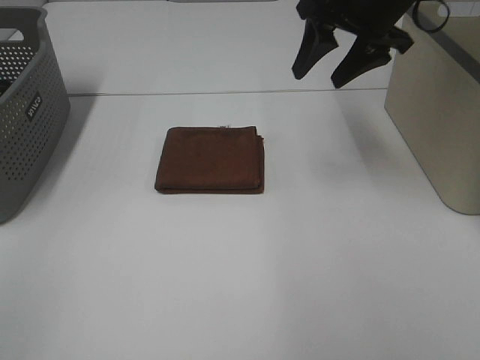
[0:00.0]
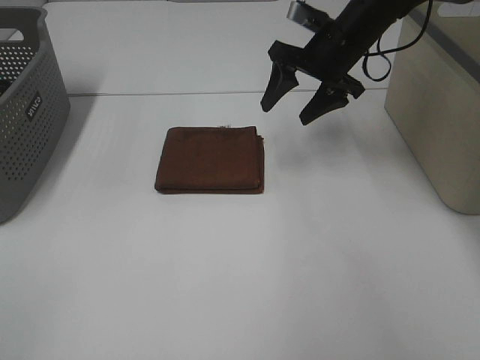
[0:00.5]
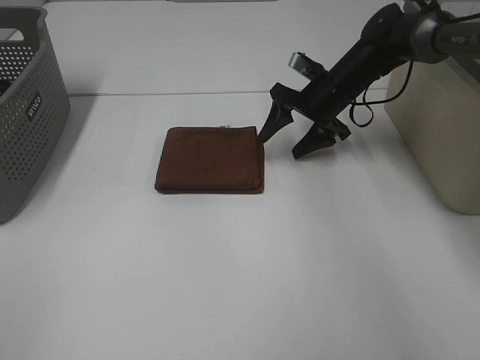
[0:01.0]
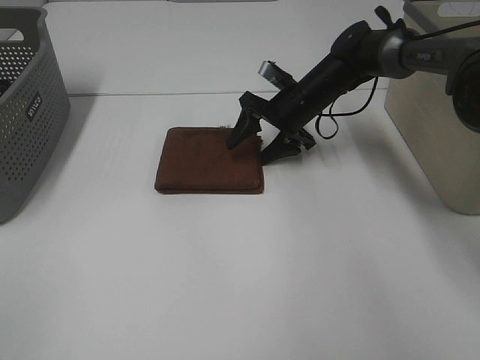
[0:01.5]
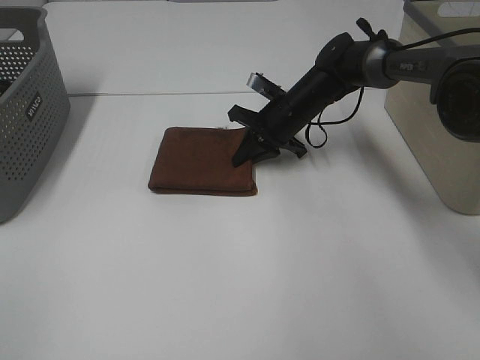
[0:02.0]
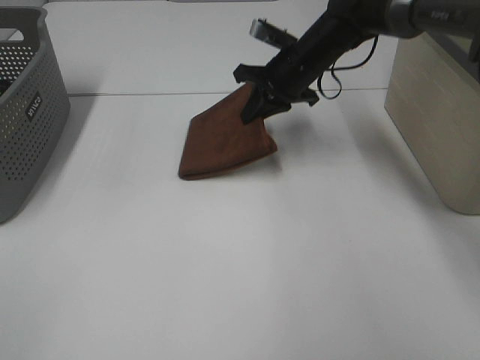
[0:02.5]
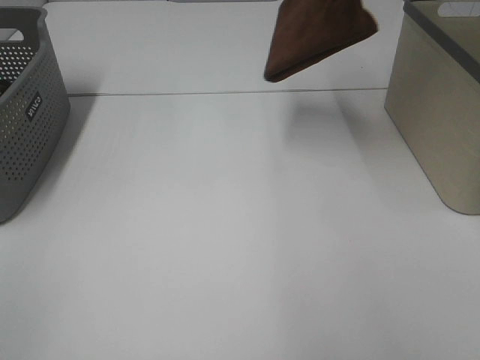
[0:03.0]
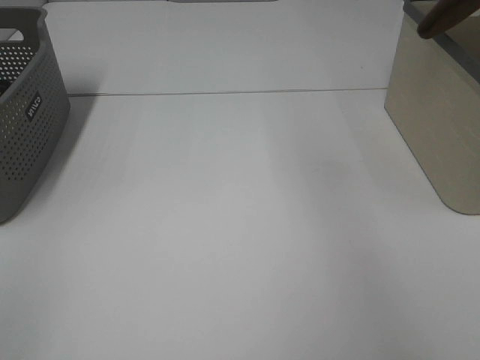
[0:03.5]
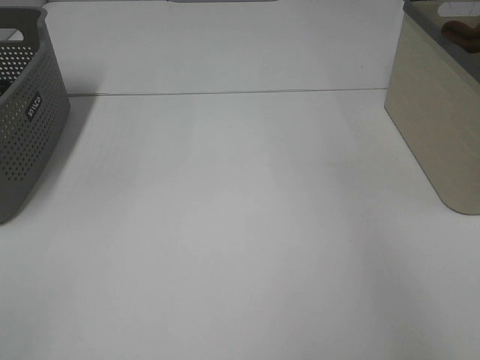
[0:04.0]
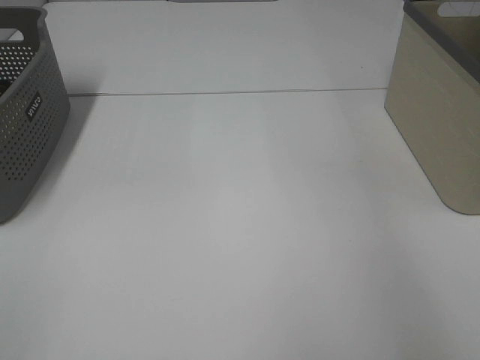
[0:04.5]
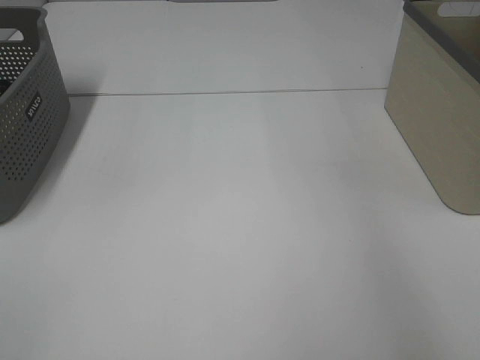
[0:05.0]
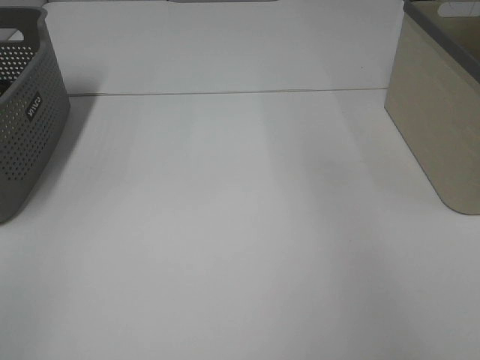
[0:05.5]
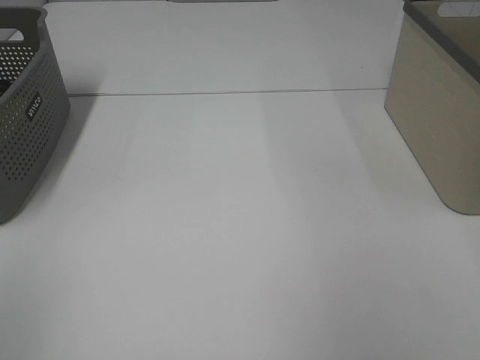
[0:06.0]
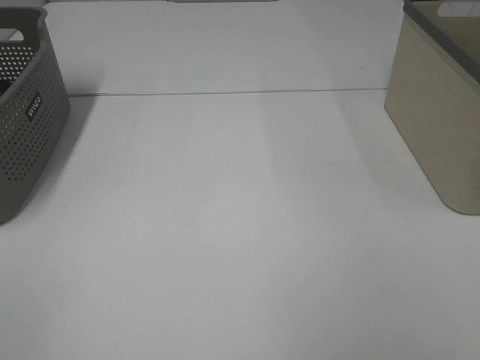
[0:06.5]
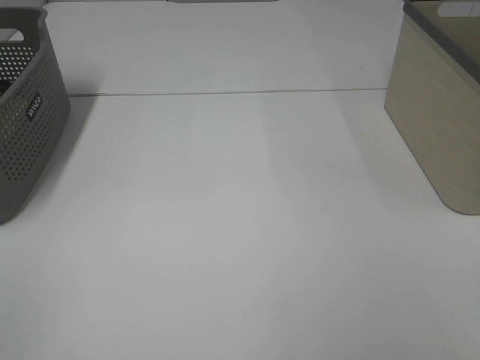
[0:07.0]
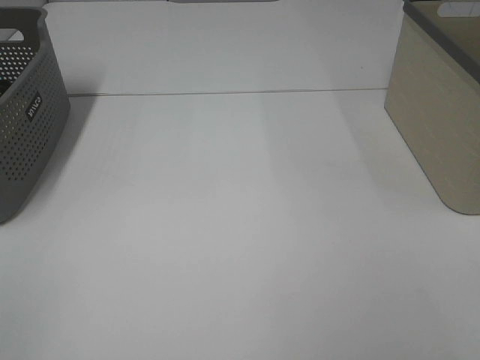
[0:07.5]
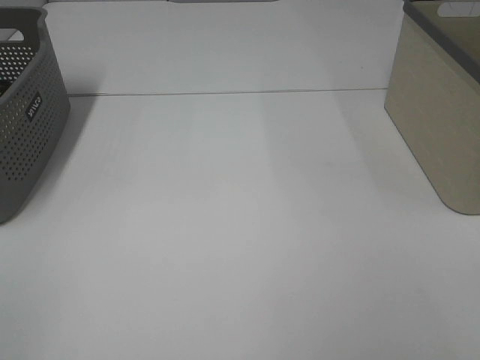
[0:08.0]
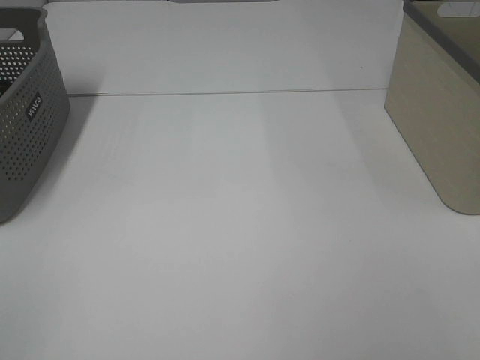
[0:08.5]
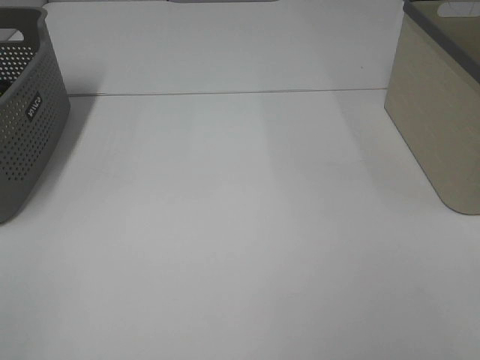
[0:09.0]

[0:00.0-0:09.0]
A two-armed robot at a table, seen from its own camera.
Step, 0:00.0 to 0:02.0: Right hand: grab the folded brown towel.
Step, 0:02.5 to 0:04.5: Right hand: place the brown towel in right basket.
0:00.0 to 0:02.0: The right gripper heads downward, covering approximately 20 cm, and closes up.
0:02.0 to 0:04.5: The right gripper heads to the right and upward, covering about 40 cm, and opens.
0:07.0 to 0:09.0: Neither gripper changes place.

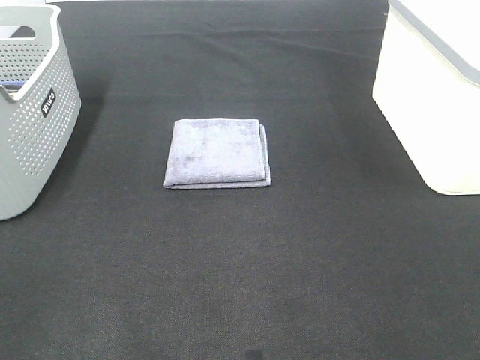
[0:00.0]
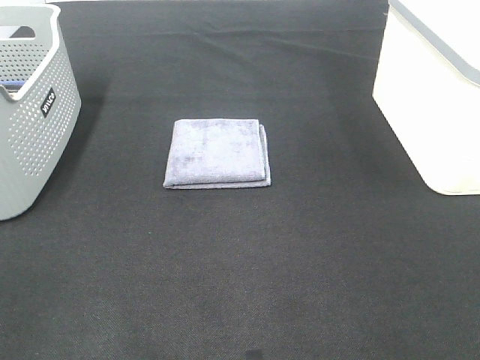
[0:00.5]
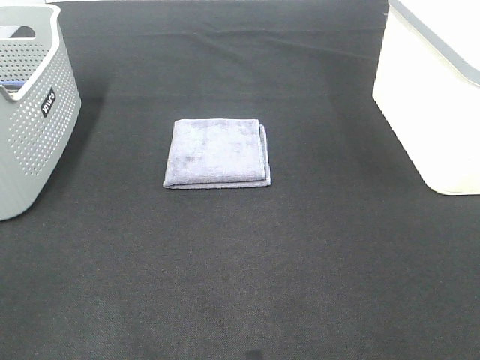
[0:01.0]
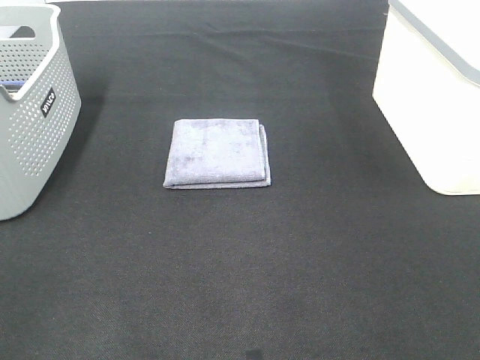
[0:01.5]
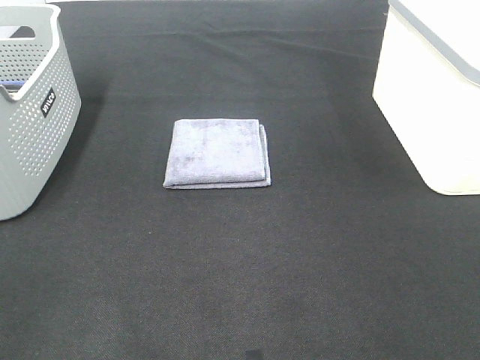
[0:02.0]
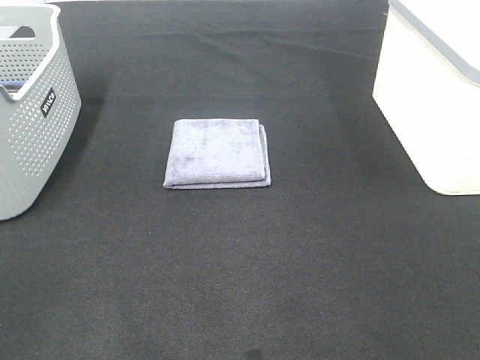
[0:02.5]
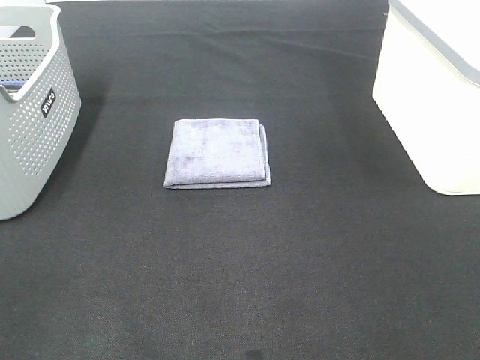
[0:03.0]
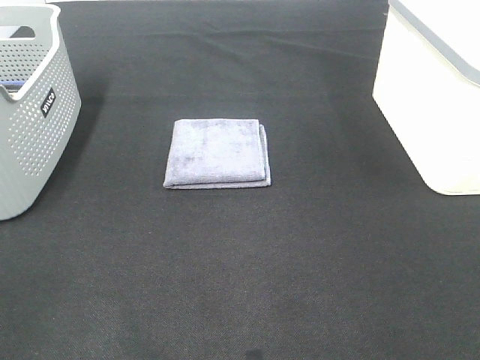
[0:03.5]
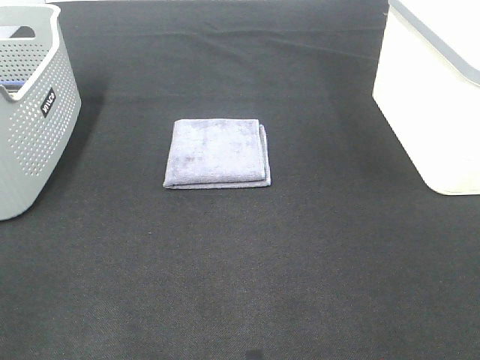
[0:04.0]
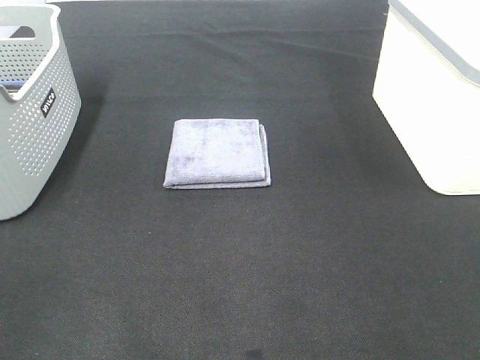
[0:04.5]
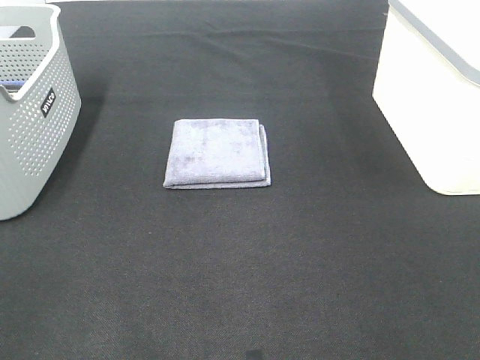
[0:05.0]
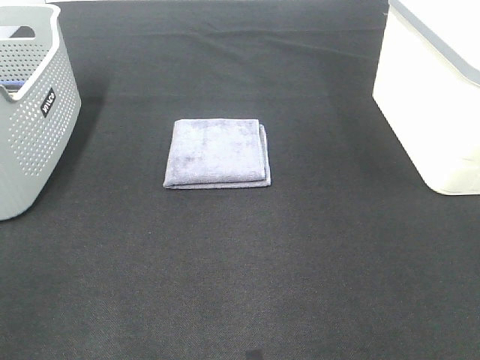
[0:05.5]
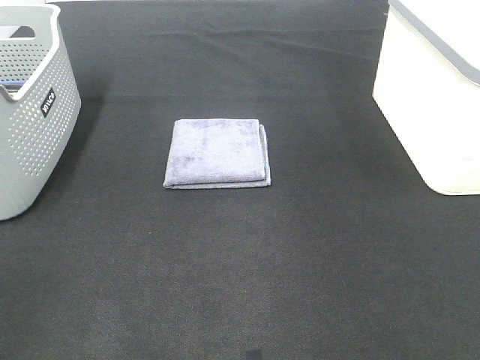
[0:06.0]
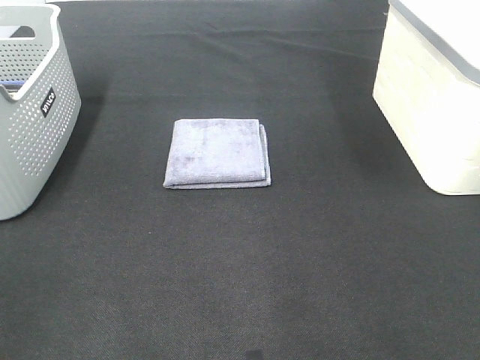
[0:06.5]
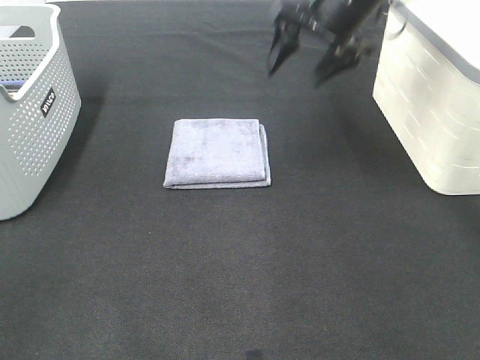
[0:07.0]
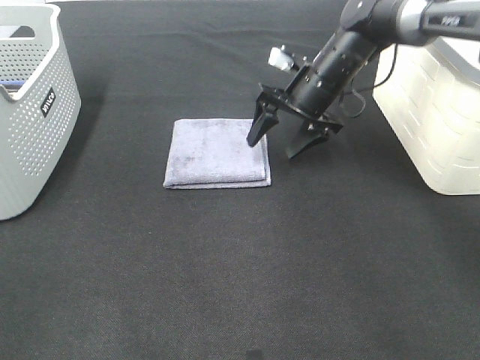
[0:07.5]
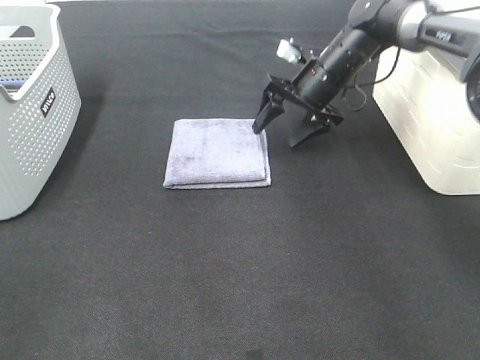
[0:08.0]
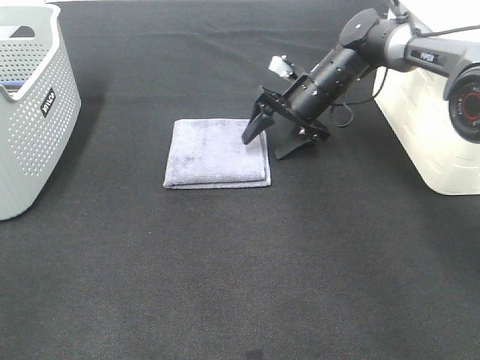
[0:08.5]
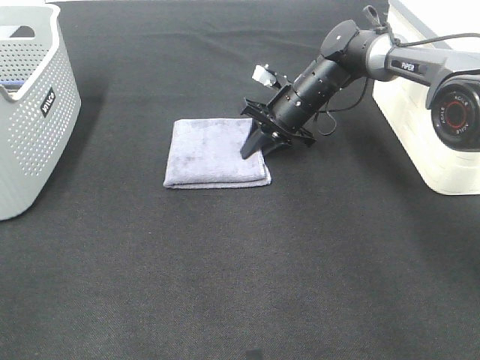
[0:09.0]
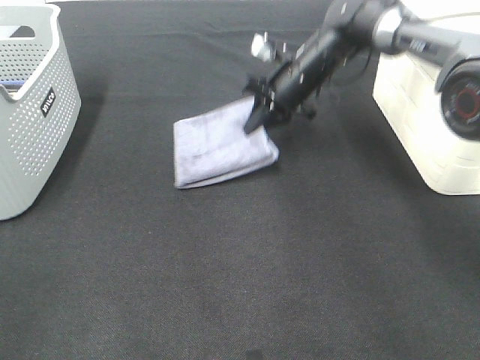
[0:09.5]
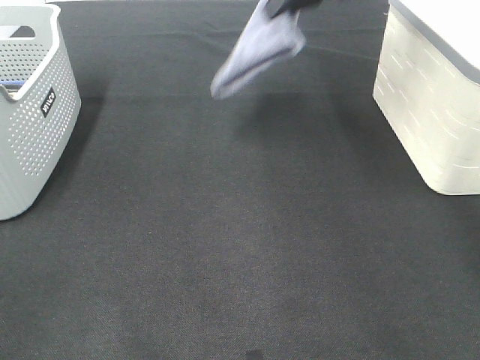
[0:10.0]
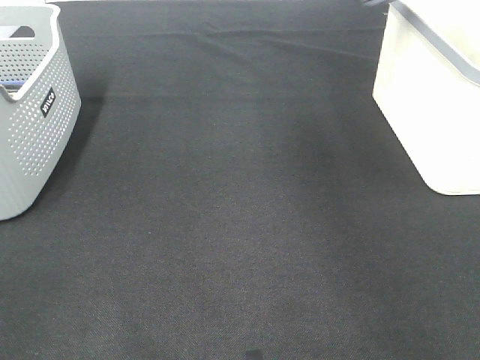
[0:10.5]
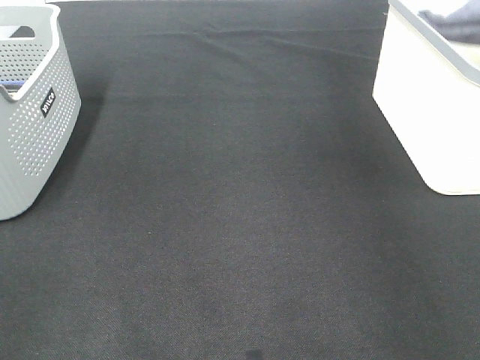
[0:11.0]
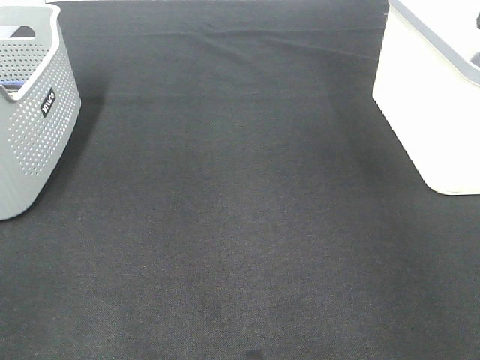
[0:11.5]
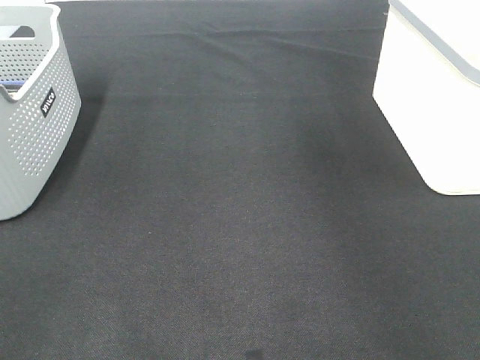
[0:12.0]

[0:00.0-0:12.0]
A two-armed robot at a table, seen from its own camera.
Step, 0:00.0 to 0:09.0: Right hand: grab the folded grey towel.
Step, 0:09.5 to 0:11.5: Right hand: place the grey towel in right basket.
0:00.0 to 0:04.0: Both grippers stay about where they are.
0:06.0 to 0:08.0: The right gripper goes some 35 cm downward, forward and to the left.
0:08.0 to 0:10.0: The right gripper shifts approximately 20 cm upward, and closes.
0:10.0 to 0:12.0: The right gripper shifts some 15 cm to the right, and opens up.

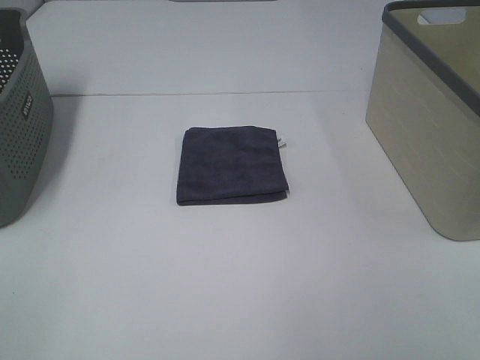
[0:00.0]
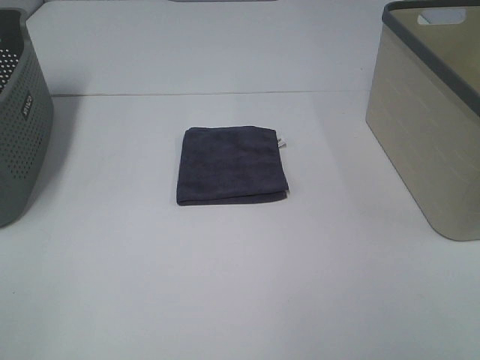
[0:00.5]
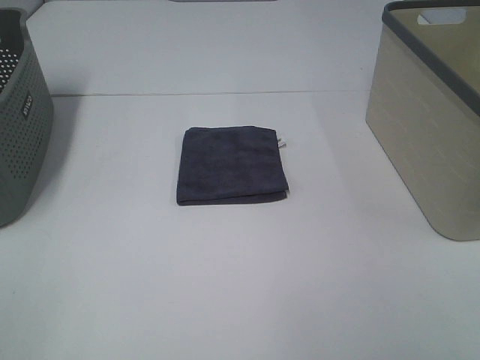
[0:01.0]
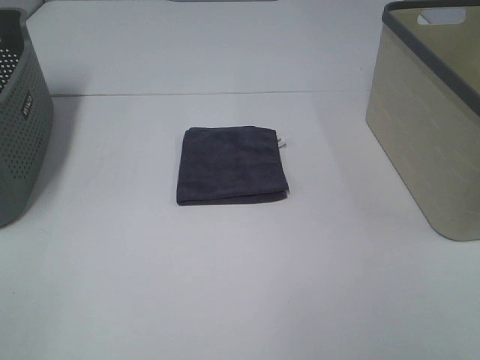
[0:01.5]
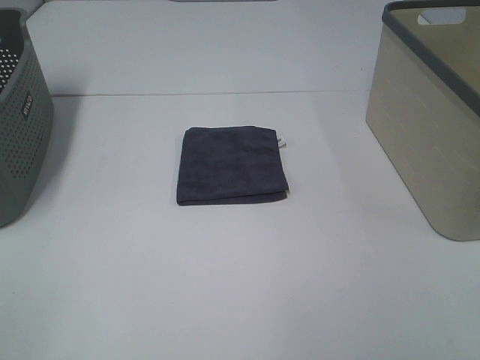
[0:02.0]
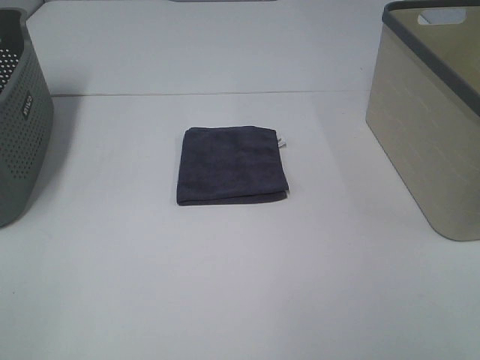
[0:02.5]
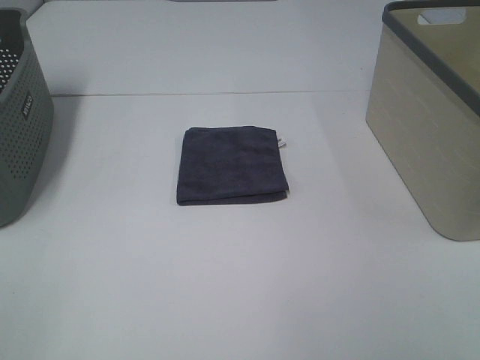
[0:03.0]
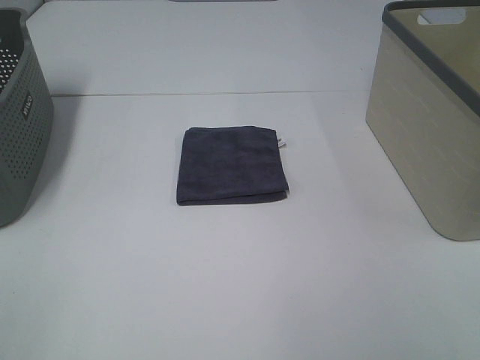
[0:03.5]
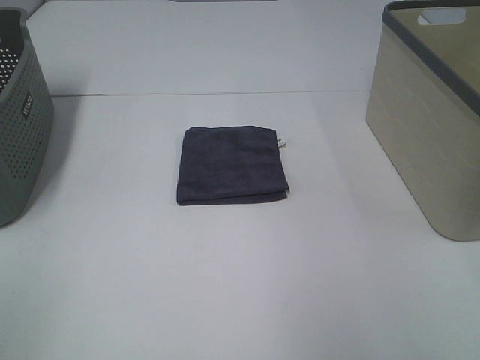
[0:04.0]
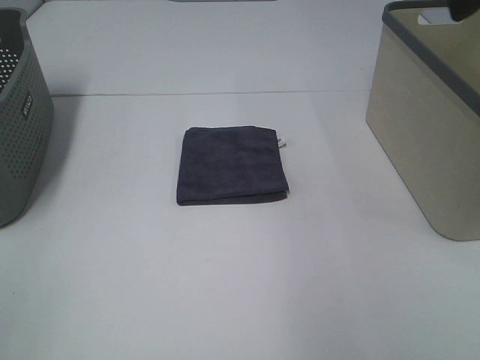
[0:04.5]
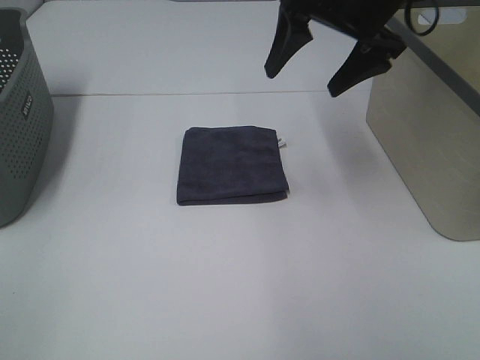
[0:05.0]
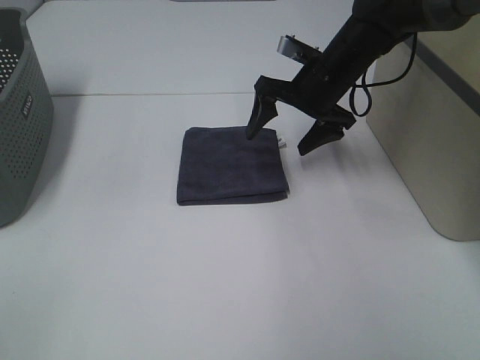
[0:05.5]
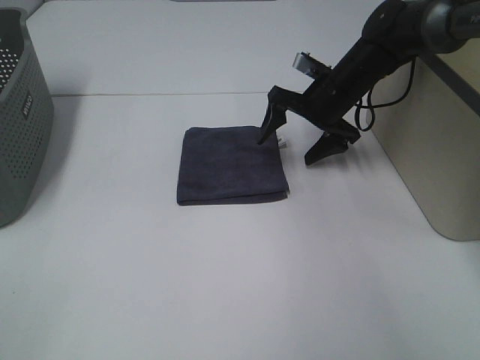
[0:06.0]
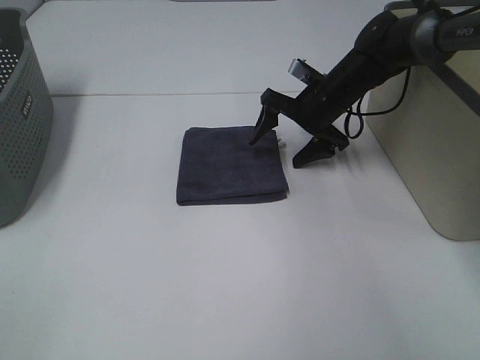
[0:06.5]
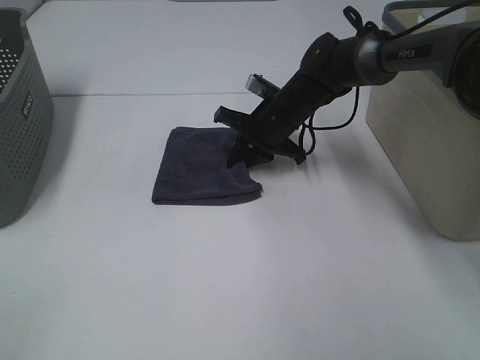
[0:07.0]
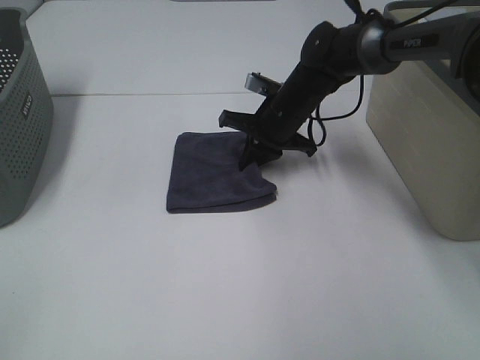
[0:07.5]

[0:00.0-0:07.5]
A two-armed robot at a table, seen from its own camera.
Step, 0:00.0 to 0:07.0: Right hand: grab the folded grey towel.
0:00.0 to 0:02.0: The two grippers keep their place.
0:04.0 to 0:05.5: The right gripper goes about 40 cm forward, downward and to the left.
0:05.5 to 0:07.5: The right gripper travels to the left by roughly 5 cm, and closes.
